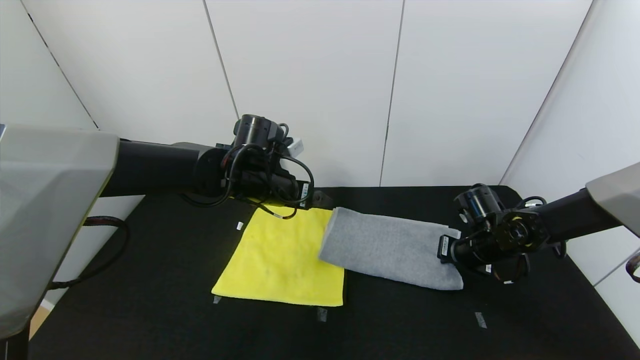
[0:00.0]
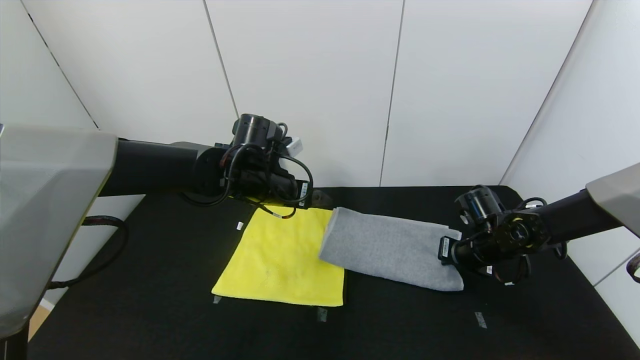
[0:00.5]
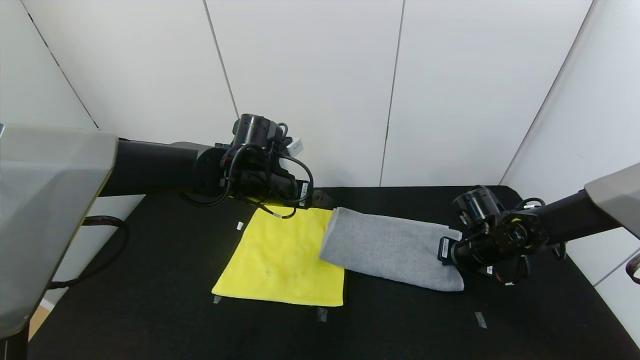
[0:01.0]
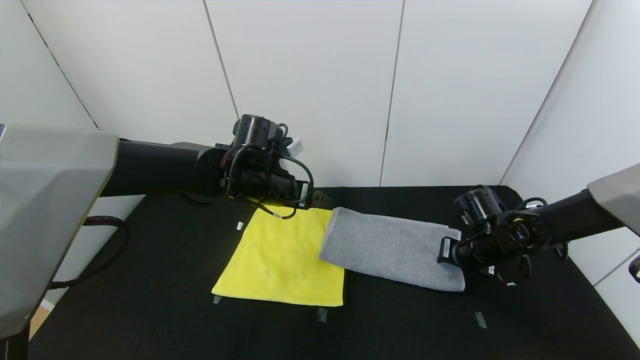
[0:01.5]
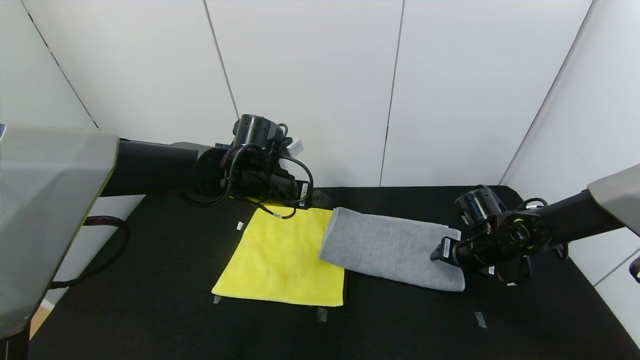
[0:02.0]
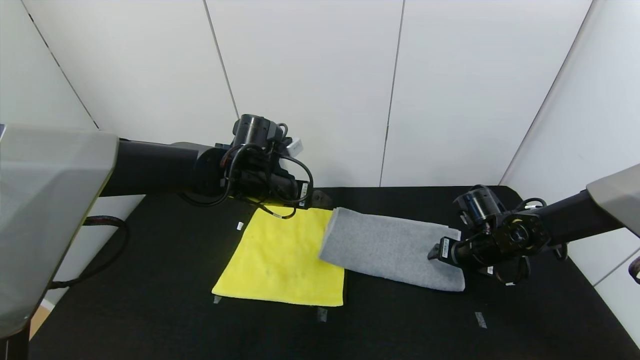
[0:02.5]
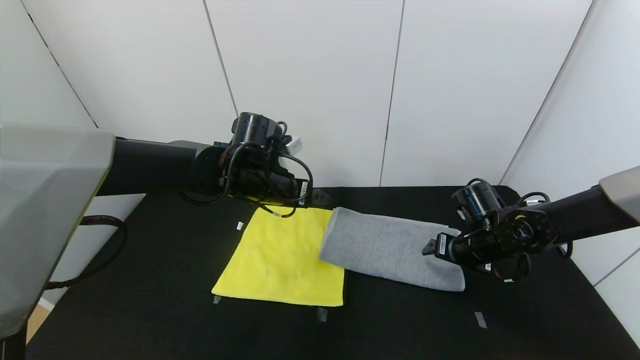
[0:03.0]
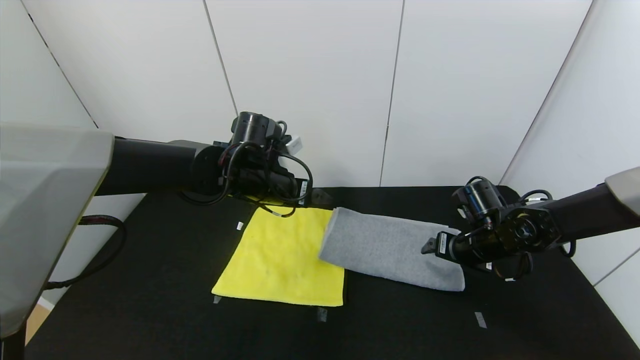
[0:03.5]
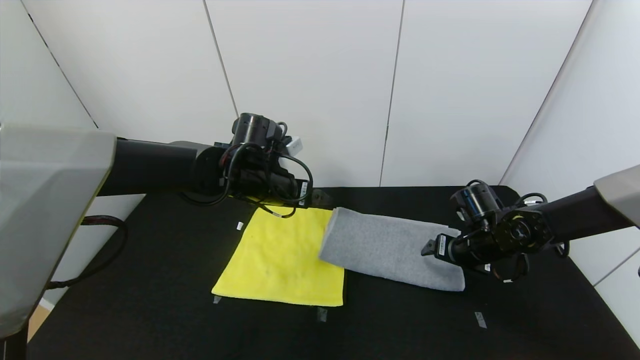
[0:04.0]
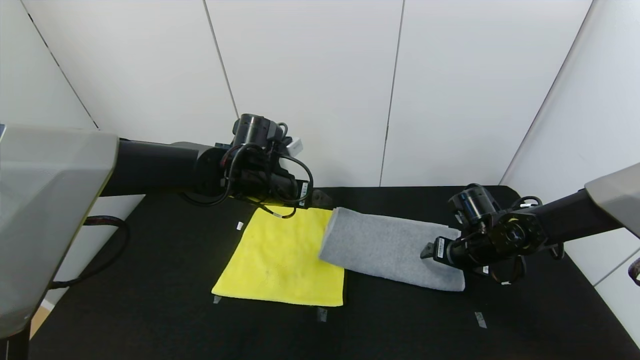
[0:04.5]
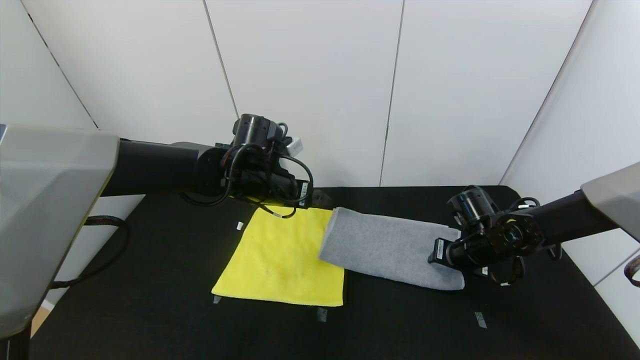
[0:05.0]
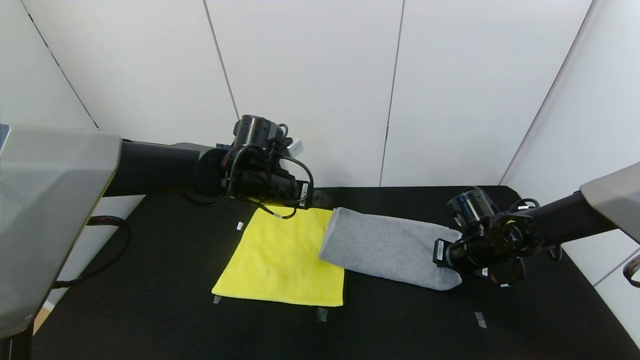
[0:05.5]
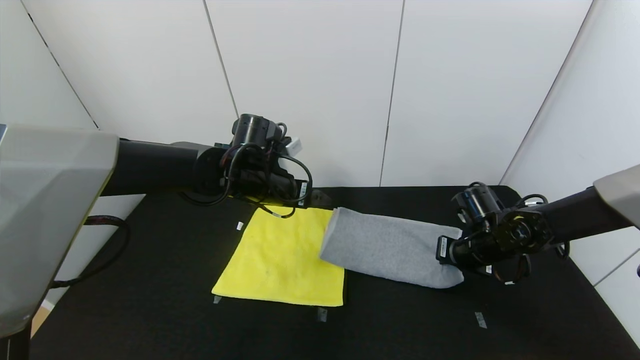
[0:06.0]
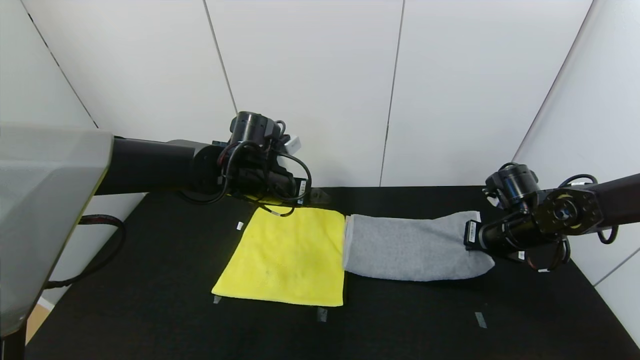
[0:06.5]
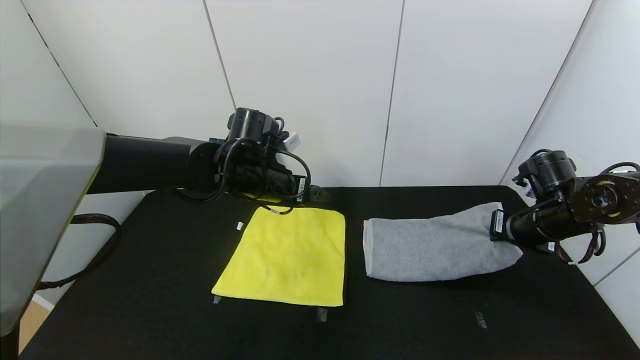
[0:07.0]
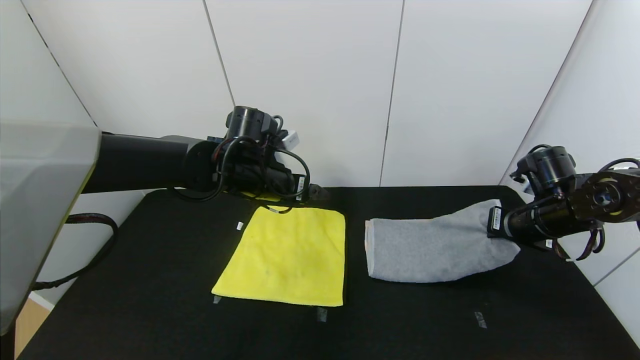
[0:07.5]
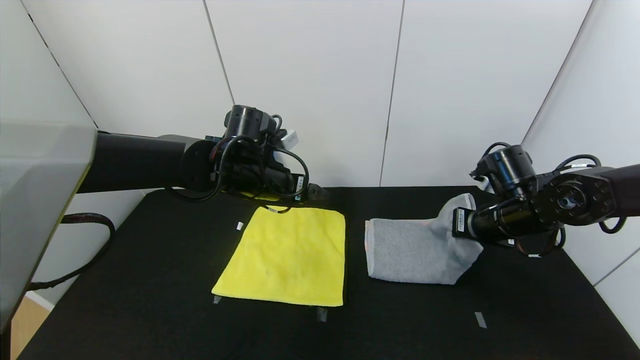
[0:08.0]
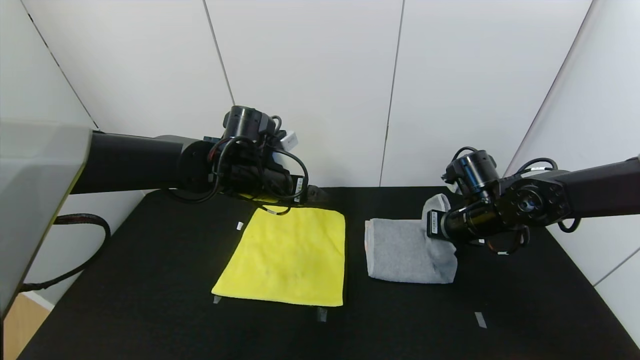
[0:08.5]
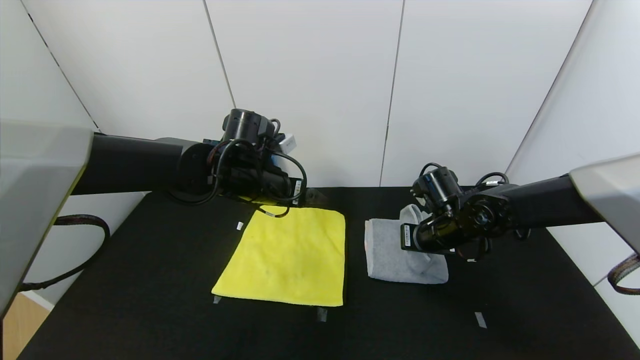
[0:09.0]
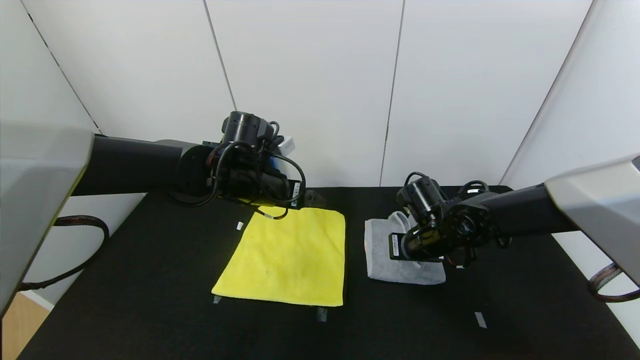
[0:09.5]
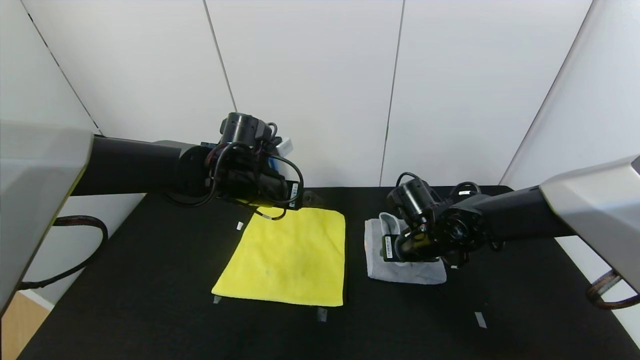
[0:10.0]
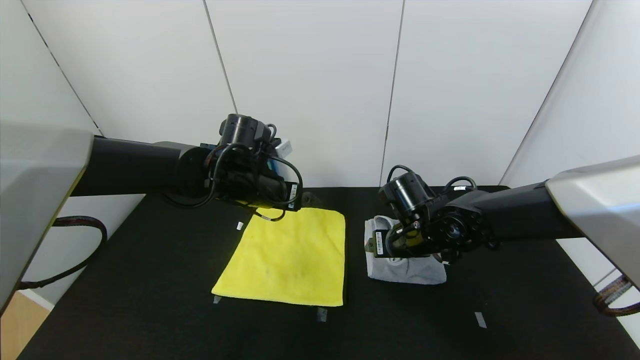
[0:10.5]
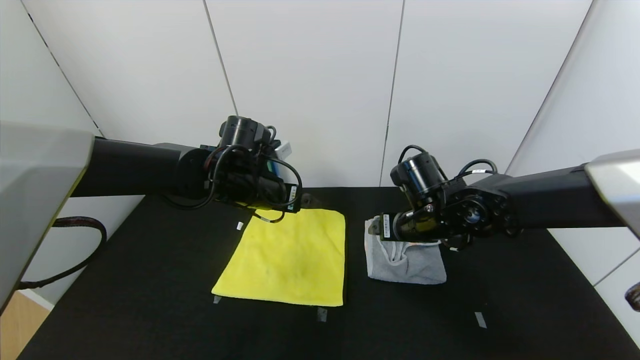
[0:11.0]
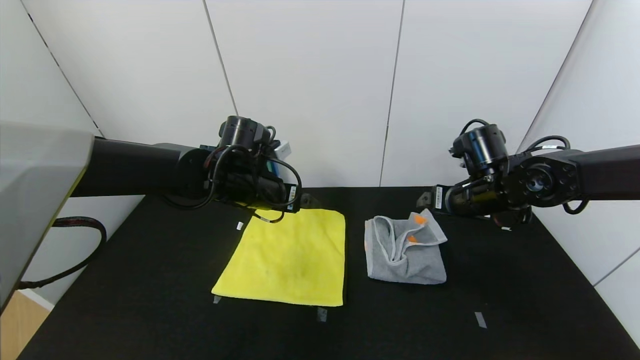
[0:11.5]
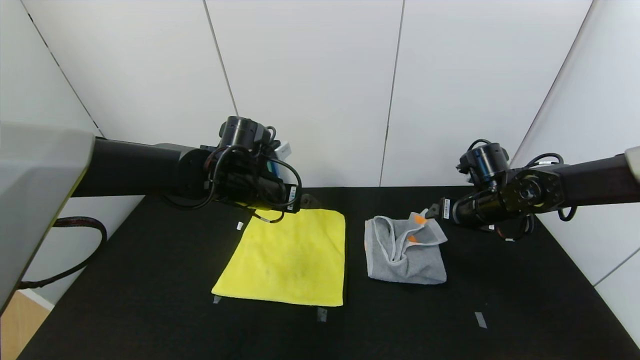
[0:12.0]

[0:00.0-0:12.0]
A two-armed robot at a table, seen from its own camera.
Task of the whole recording: Use the gripper to fold the yellow towel and grey towel in half twice,then put the yellow towel on the grey towel.
0:00.0 to 0:02.0: The right gripper opens up.
0:02.0 to 0:04.0: The grippers stay close to where they were, moving slightly.
0:04.0 to 0:06.0: The right gripper closes up.
0:06.0 to 0:08.0: The right gripper is displaced upward by about 10 cm.
0:08.0 to 0:10.0: The right gripper shifts some 15 cm to the left and downward, and opens.
0:10.0 to 0:12.0: The right gripper travels to the right by some 10 cm, and opens its fingers.

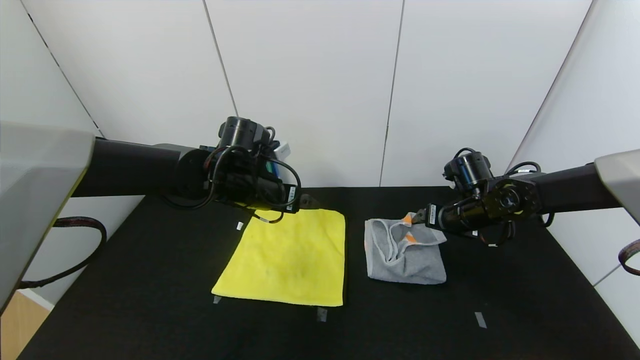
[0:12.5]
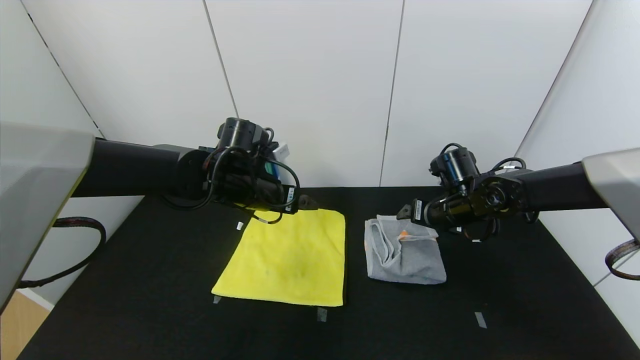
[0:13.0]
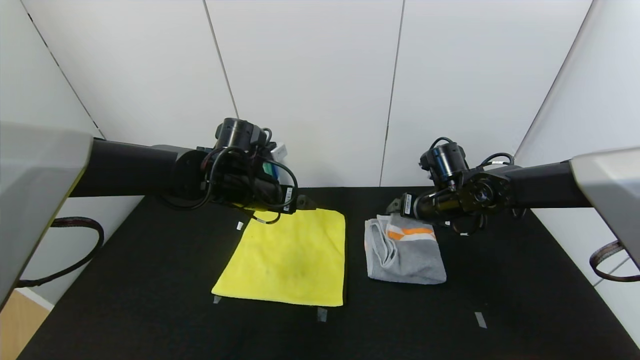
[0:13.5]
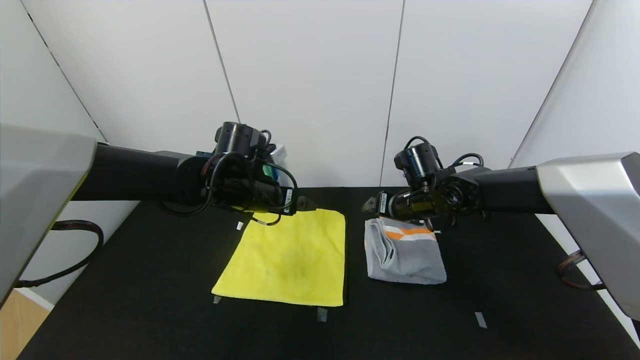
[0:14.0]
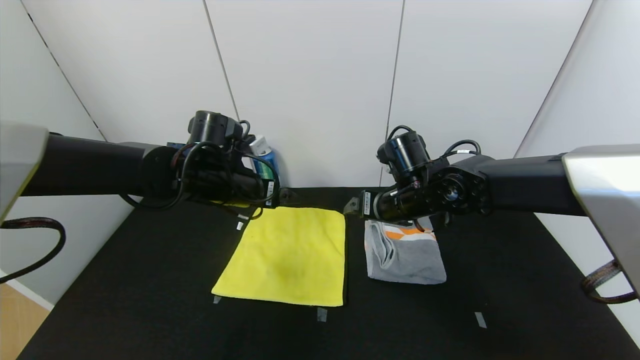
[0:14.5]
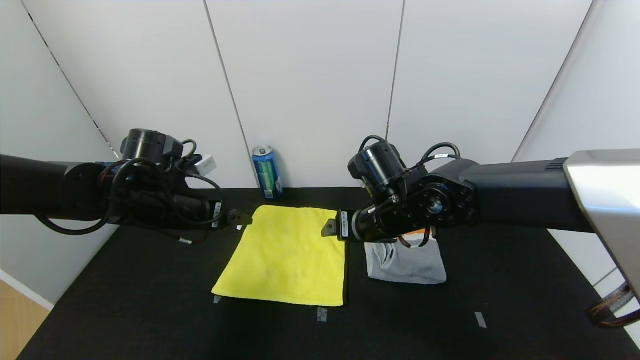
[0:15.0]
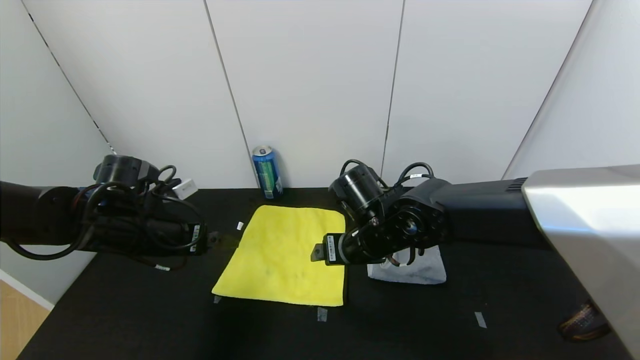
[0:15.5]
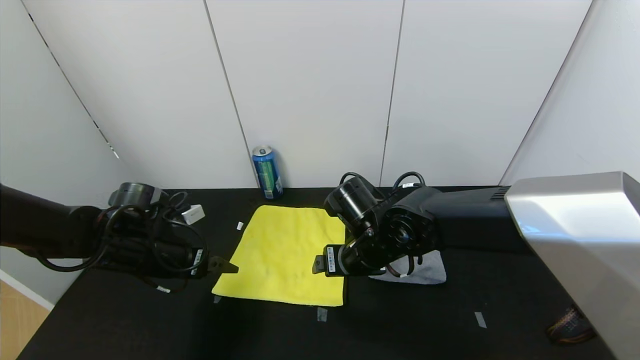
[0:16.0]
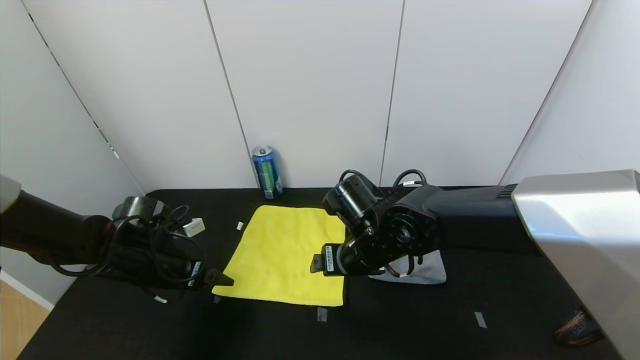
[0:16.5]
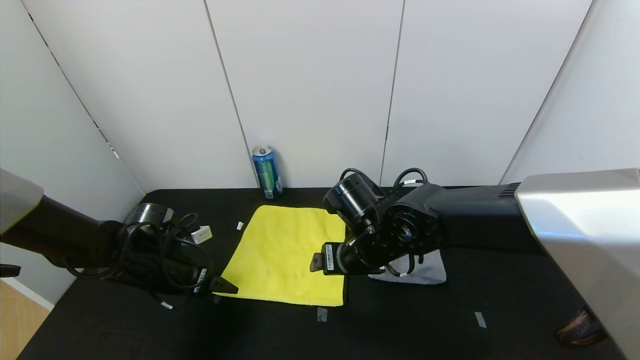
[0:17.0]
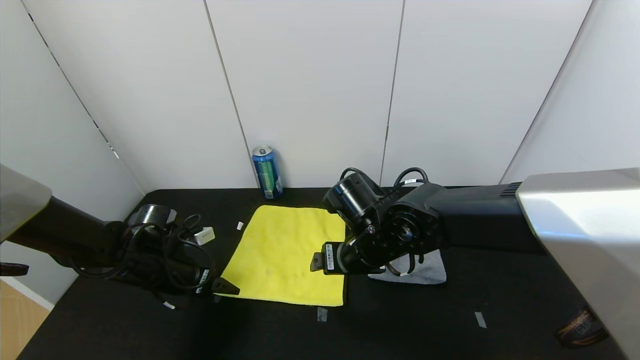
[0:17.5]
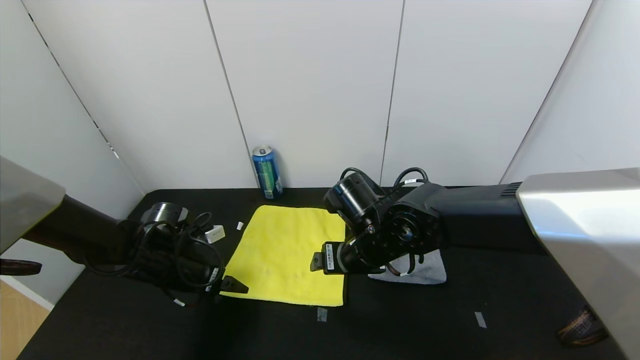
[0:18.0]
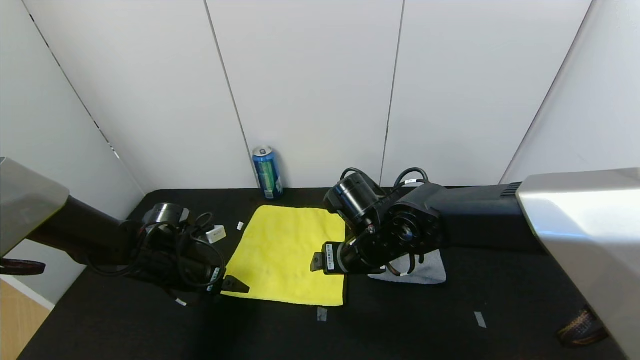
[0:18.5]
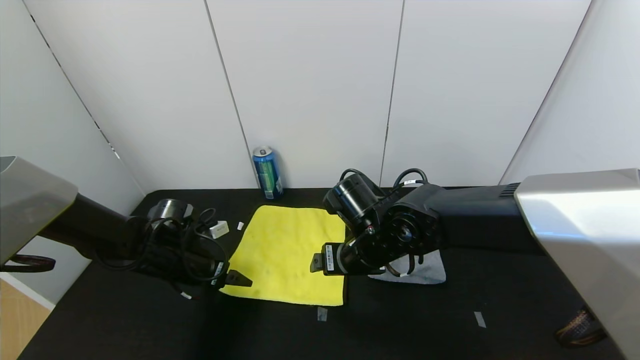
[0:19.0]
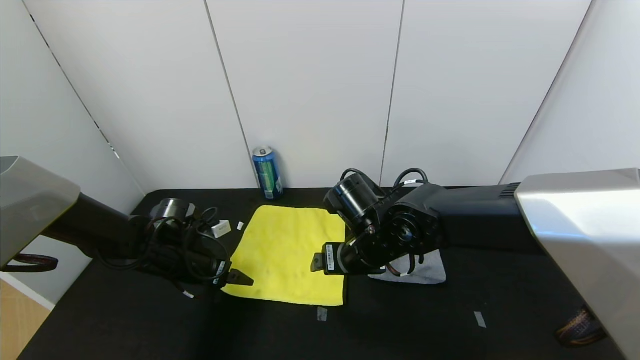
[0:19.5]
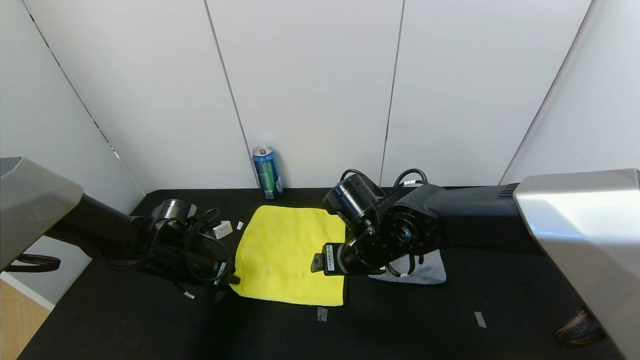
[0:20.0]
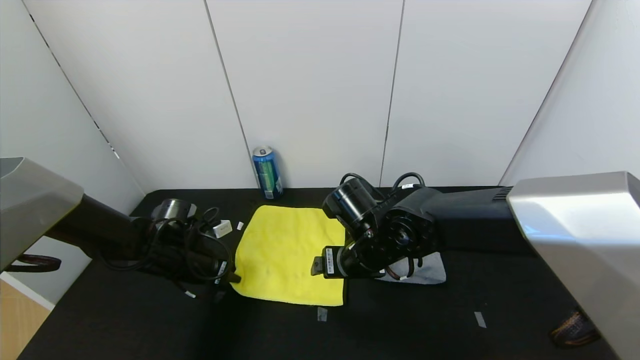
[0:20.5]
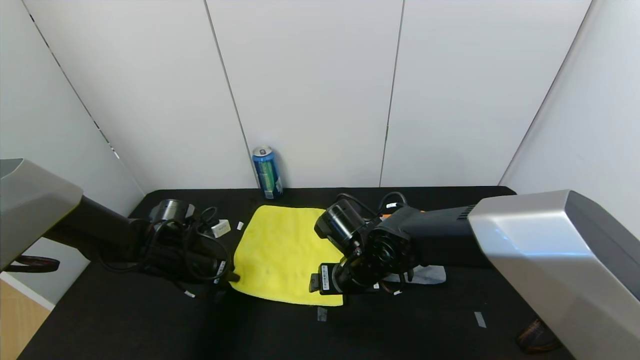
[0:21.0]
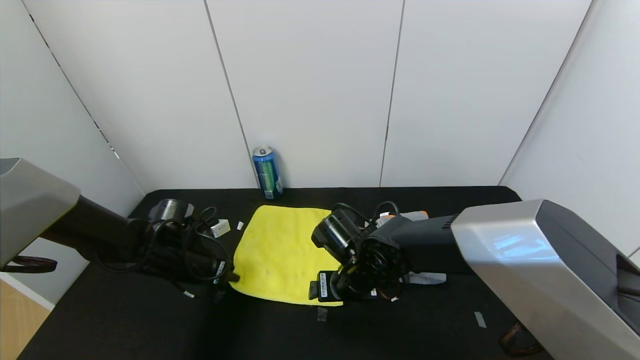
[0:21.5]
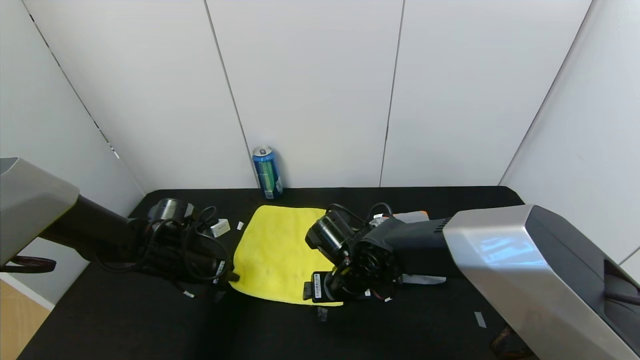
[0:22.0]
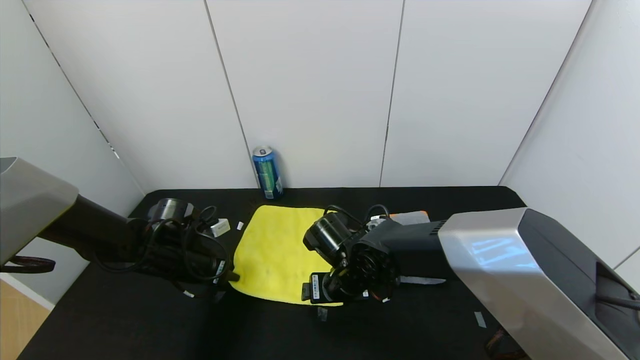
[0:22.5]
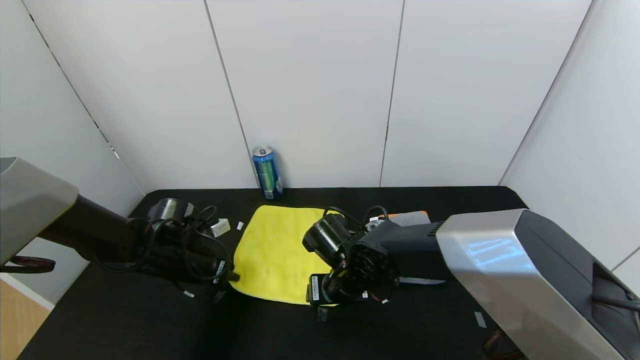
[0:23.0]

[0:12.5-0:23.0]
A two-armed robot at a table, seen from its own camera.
Task of the whole recording: Use the gripper to fold the yellow towel and grey towel in half twice,then put the yellow towel on the grey towel.
0:12.5 to 0:14.5: The right gripper moves to the left, roughly 15 cm.
0:14.5 to 0:16.5: The left gripper goes roughly 20 cm to the left, downward and backward, while the right gripper moves to the left and backward, some 10 cm.
0:16.5 to 0:19.0: There are only small adjustments of the grippers.
0:19.0 to 0:21.0: The left gripper closes.
0:21.0 to 0:23.0: The grippers move only a little.
